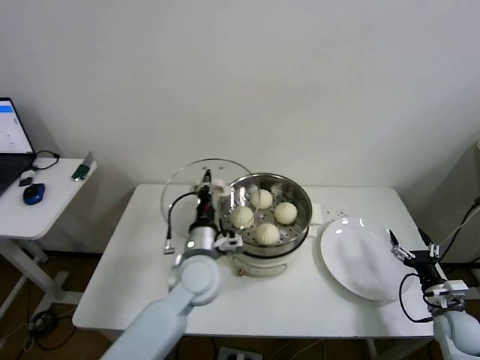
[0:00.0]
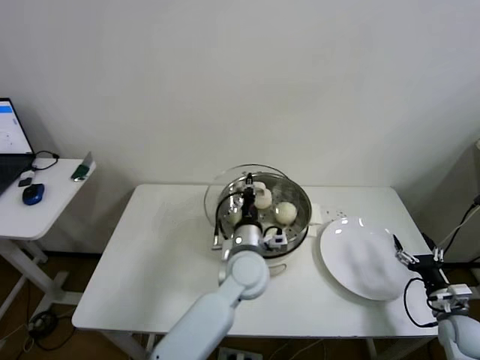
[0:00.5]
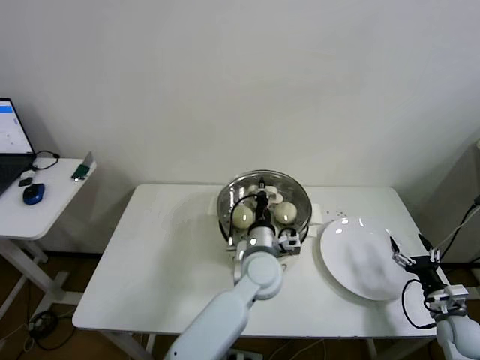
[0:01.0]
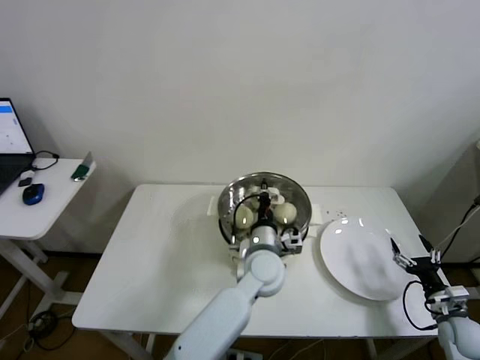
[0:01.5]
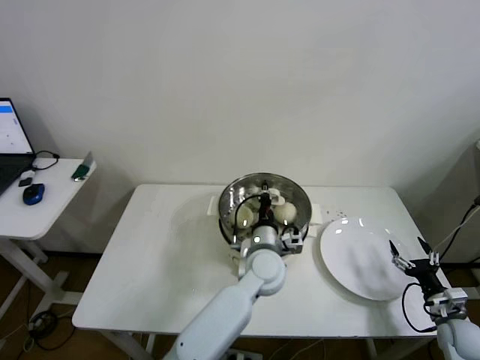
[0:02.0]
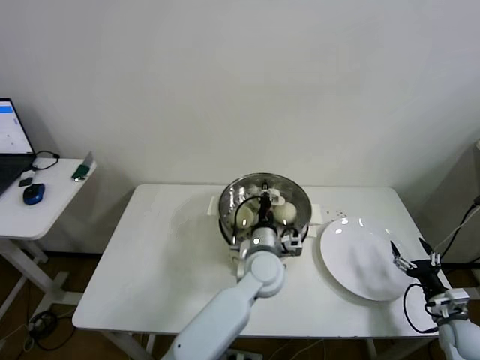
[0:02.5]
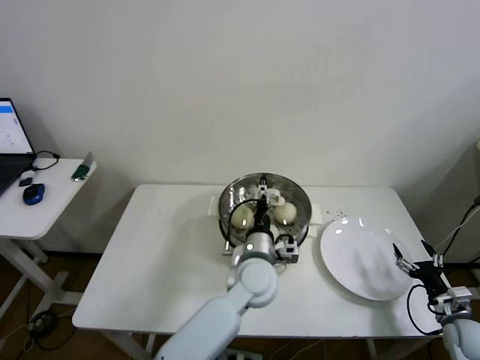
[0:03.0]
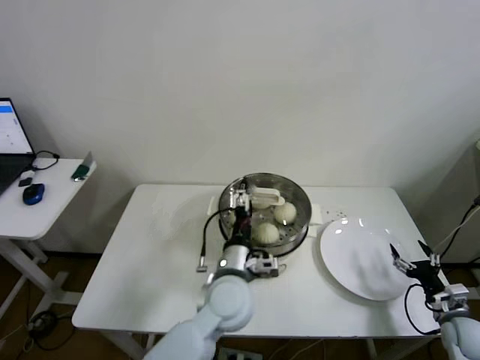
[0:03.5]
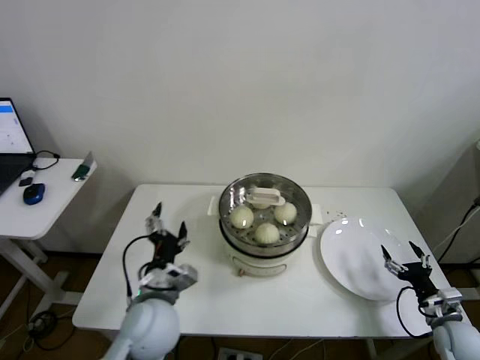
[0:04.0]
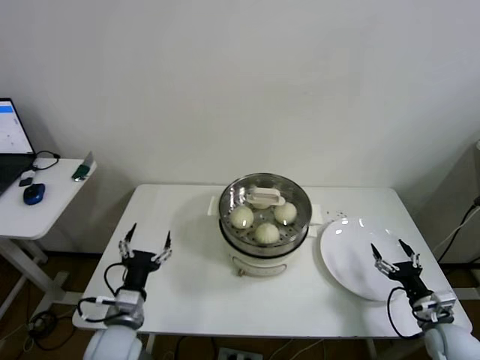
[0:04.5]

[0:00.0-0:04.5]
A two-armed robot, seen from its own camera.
Step, 0:00.0 to 0:03.5: Place the pot lid on the steamer with left gripper.
0:00.0 to 0:02.0: The left gripper moves to the right, about 15 cm.
0:02.0 to 0:04.5: The left gripper shifts some 30 cm to the left and backward, and opens up, while the right gripper changes place by some 5 cm.
